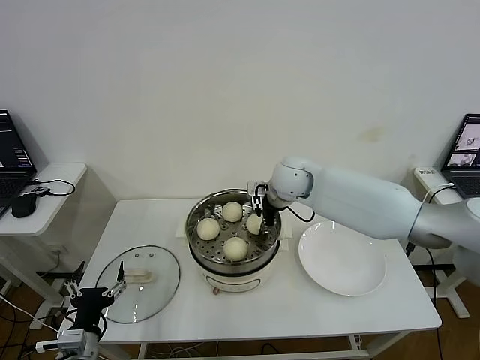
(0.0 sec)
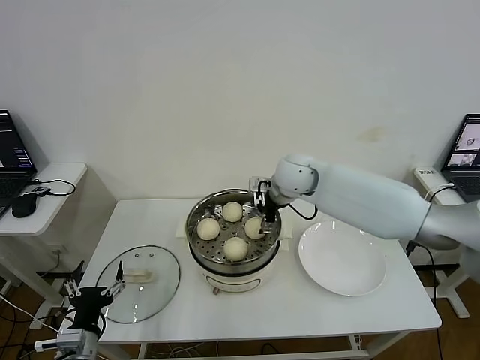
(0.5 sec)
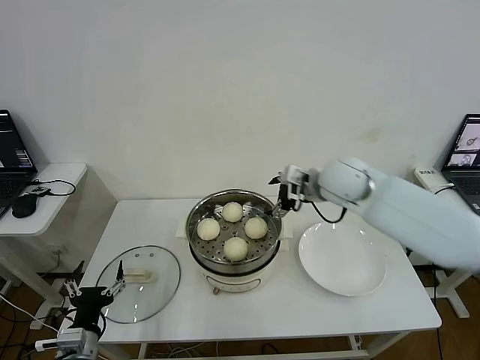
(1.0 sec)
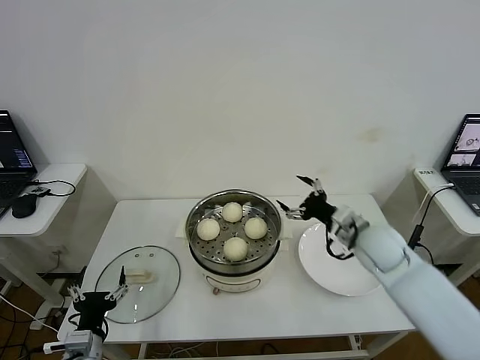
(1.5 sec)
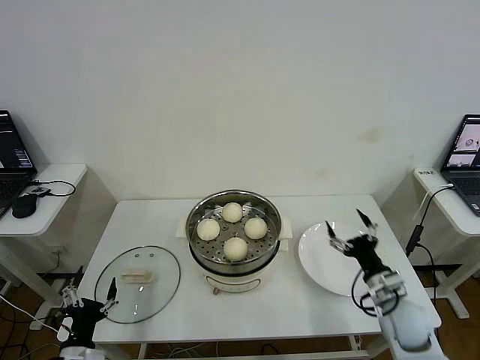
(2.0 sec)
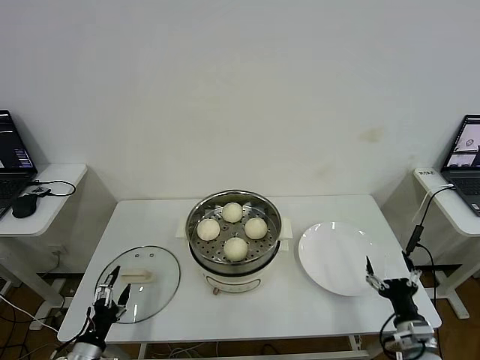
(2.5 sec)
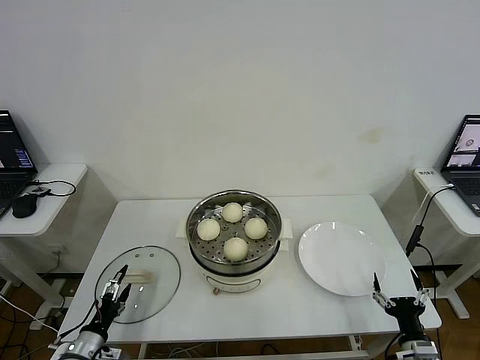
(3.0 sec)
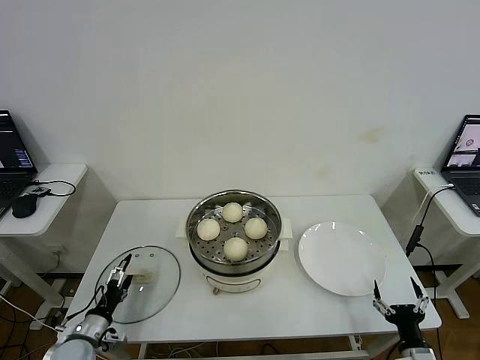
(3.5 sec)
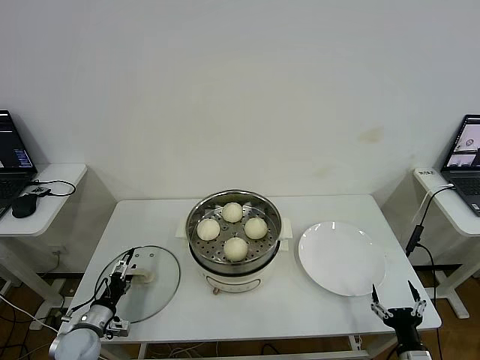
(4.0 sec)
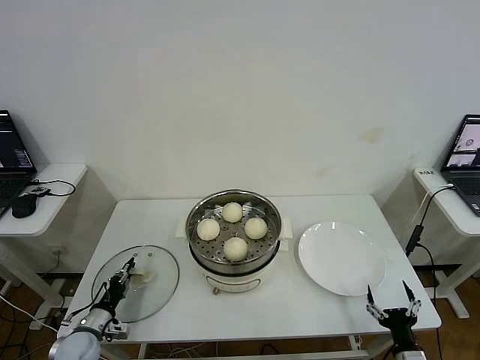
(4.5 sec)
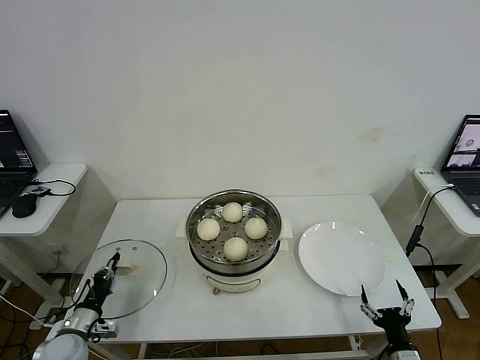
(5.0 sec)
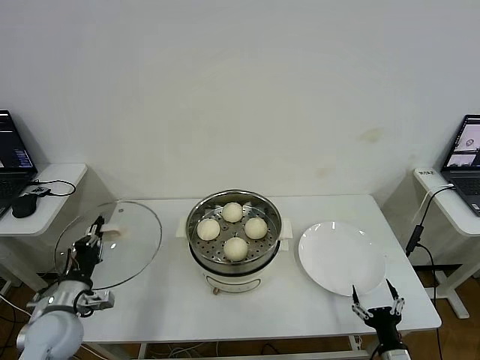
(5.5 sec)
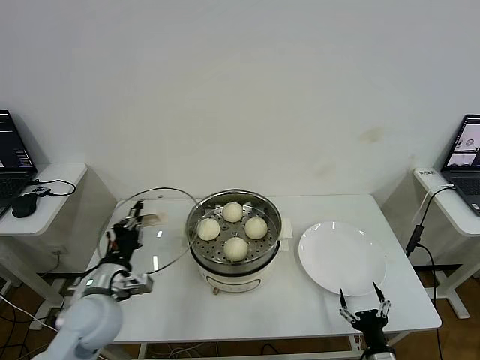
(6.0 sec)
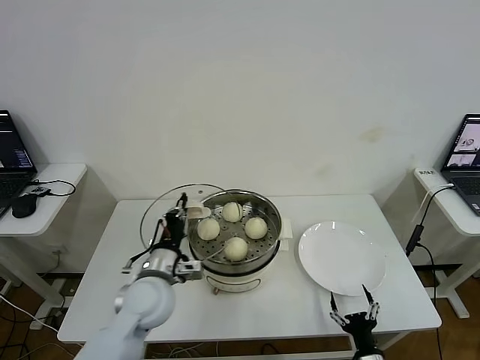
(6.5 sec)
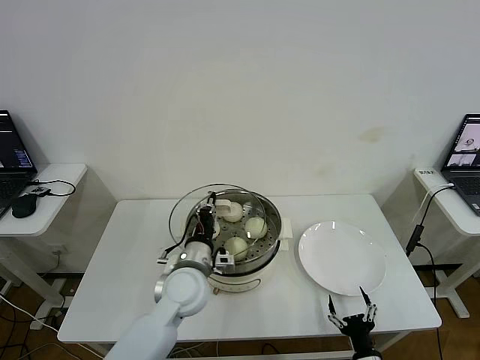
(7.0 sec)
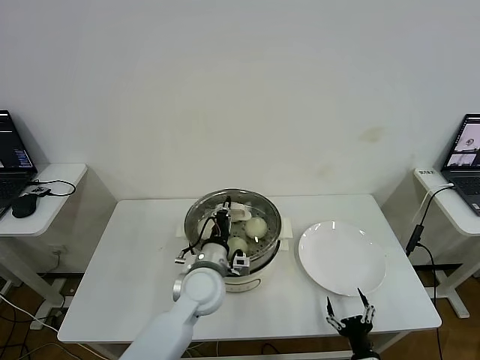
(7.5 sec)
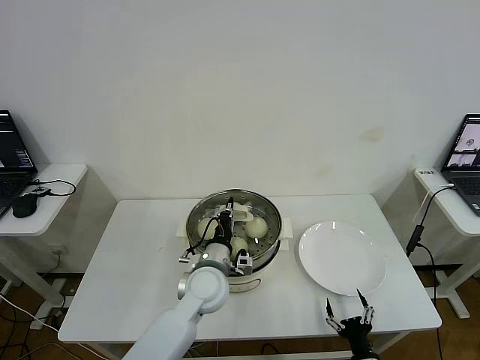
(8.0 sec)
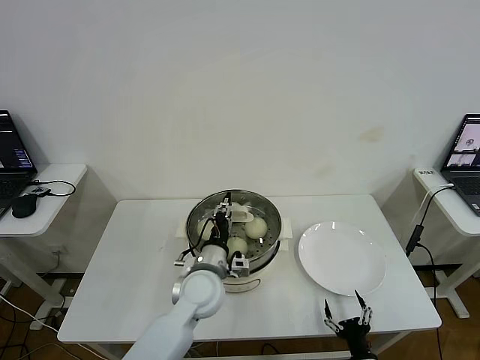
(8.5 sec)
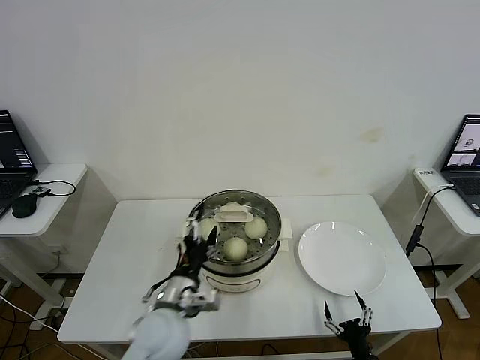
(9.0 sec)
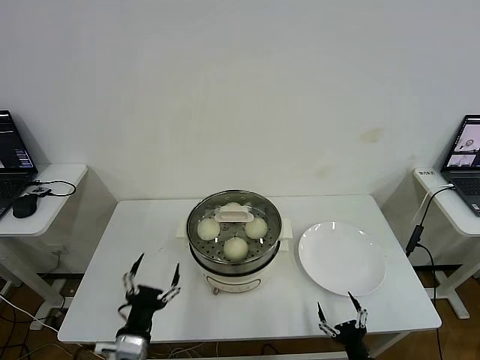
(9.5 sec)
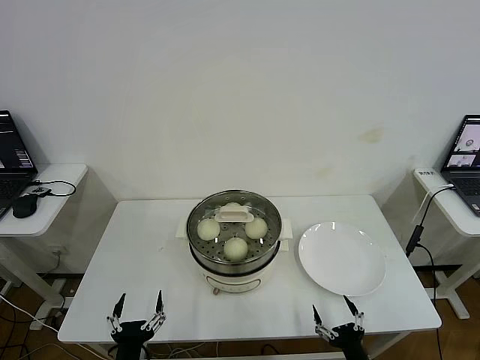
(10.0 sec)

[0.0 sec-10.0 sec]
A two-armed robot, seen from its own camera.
Step, 1.0 sec to 4.5 sec: Grasp the pot lid with left gripper.
Step, 5.0 sec to 8.5 sec: Place the pot lid on the steamer with left gripper.
0.0 sec to 2.0 sec: The right gripper is displaced backward, to the right and downward by about 40 cm, and opens up.
2.0 sec to 4.0 sec: The right gripper travels backward and downward by roughly 20 cm. Meanwhile the left gripper shifts approximately 15 cm forward, downward and to the left.
4.0 sec to 6.0 sec: The right gripper moves to the left, approximately 5 cm; the left gripper travels upward and to the right by about 20 cm, and closes.
6.0 sec to 8.0 sec: The left gripper moves to the right, about 20 cm.
8.0 sec to 10.0 sec: The right gripper moves roughly 5 cm, while the left gripper moves backward and to the left, some 30 cm, and opens.
